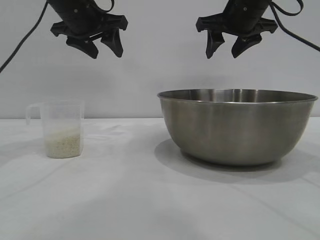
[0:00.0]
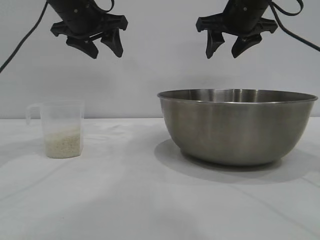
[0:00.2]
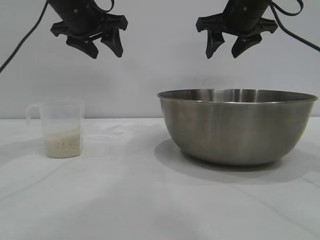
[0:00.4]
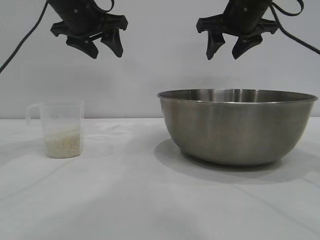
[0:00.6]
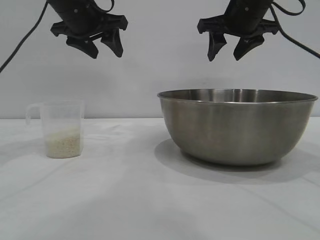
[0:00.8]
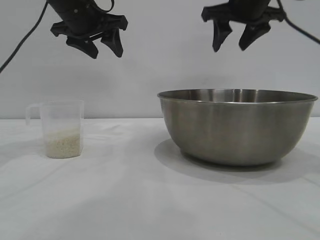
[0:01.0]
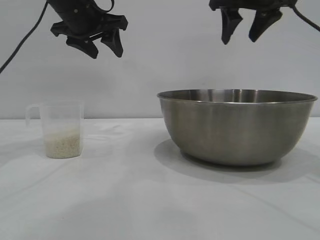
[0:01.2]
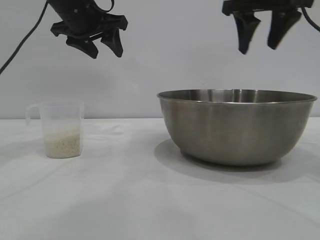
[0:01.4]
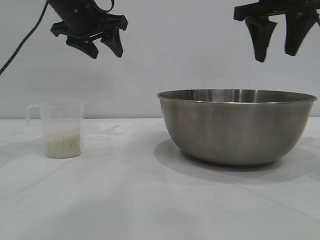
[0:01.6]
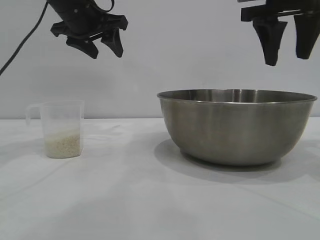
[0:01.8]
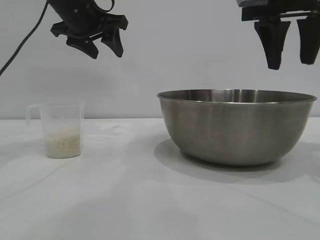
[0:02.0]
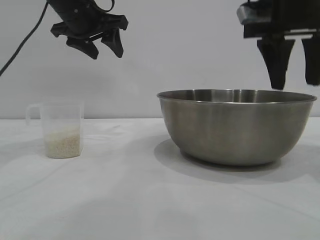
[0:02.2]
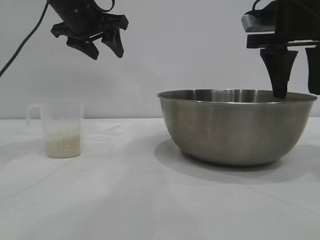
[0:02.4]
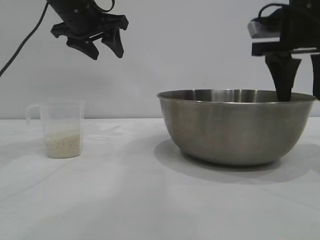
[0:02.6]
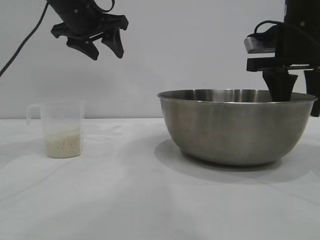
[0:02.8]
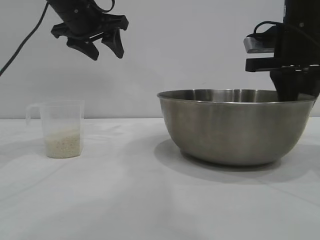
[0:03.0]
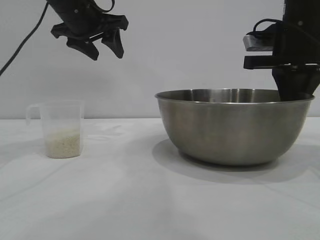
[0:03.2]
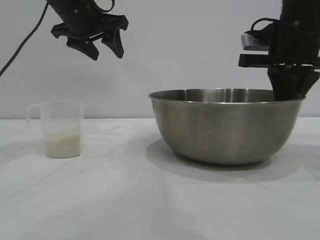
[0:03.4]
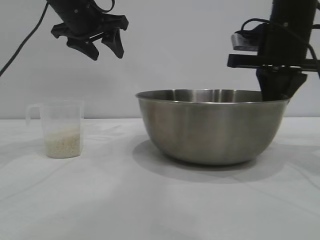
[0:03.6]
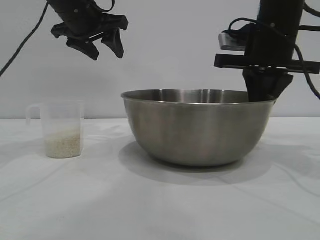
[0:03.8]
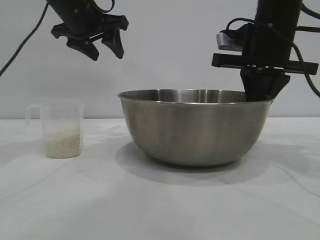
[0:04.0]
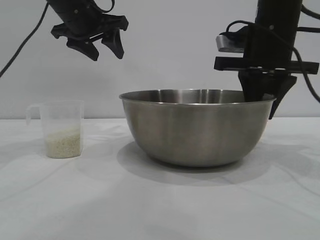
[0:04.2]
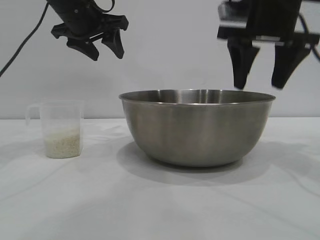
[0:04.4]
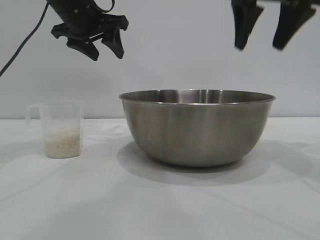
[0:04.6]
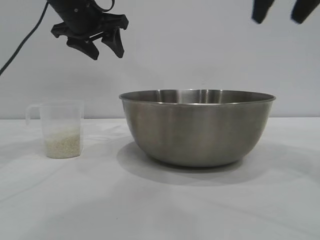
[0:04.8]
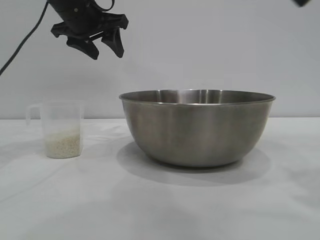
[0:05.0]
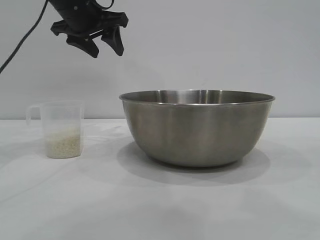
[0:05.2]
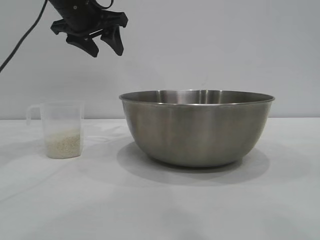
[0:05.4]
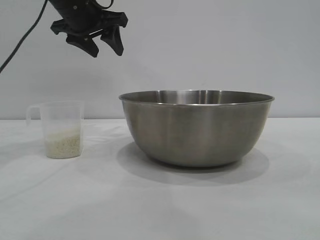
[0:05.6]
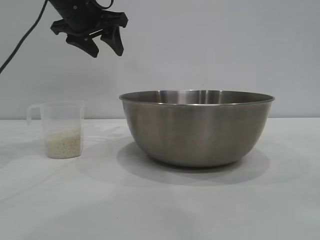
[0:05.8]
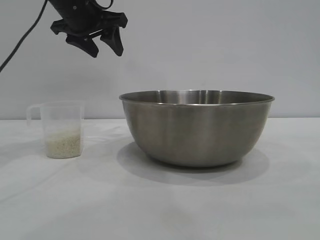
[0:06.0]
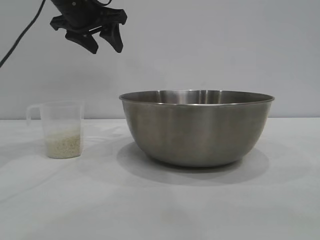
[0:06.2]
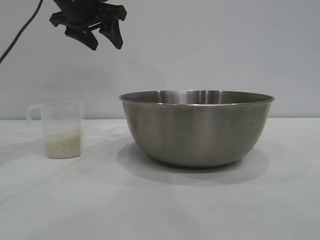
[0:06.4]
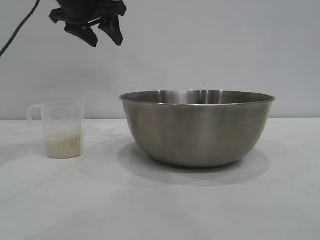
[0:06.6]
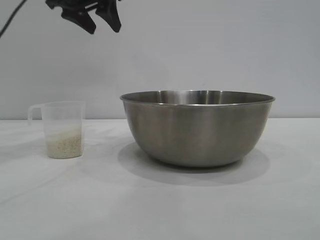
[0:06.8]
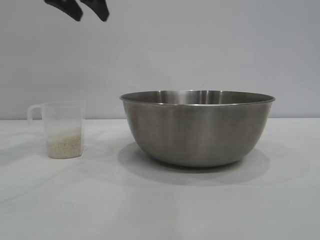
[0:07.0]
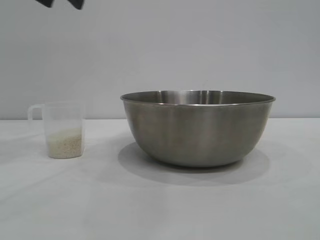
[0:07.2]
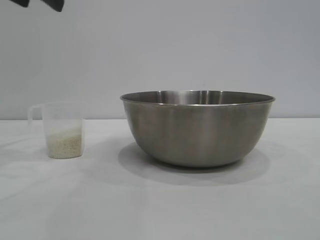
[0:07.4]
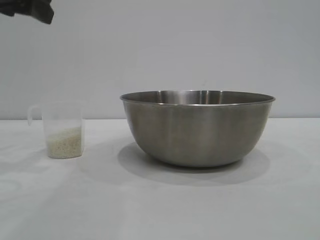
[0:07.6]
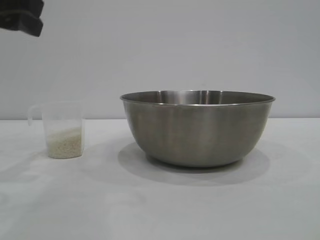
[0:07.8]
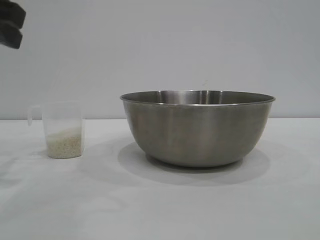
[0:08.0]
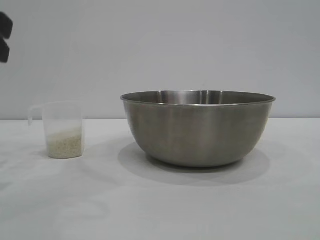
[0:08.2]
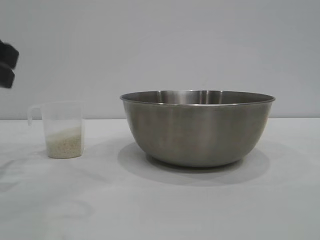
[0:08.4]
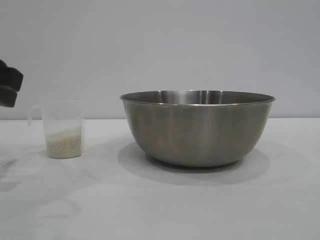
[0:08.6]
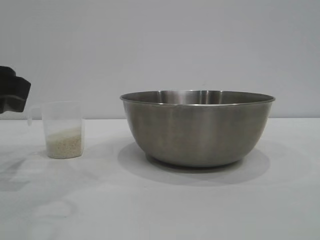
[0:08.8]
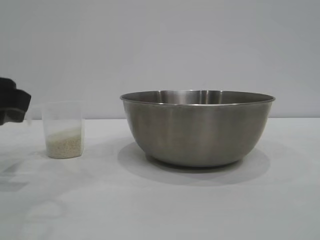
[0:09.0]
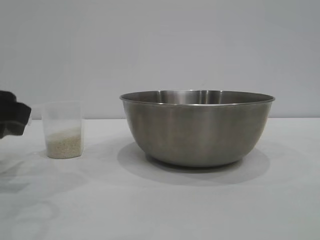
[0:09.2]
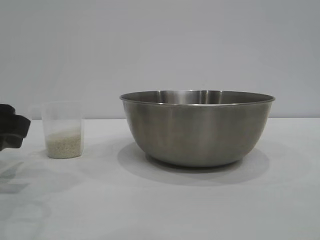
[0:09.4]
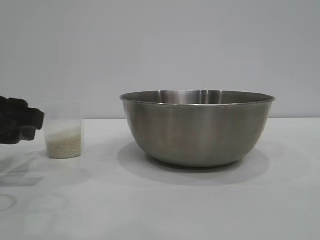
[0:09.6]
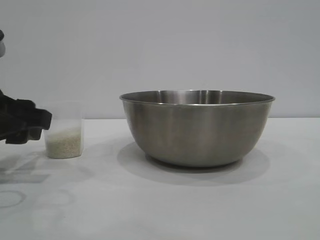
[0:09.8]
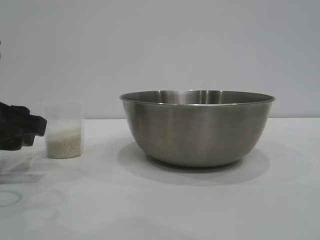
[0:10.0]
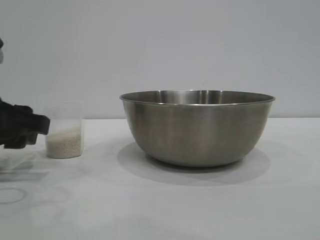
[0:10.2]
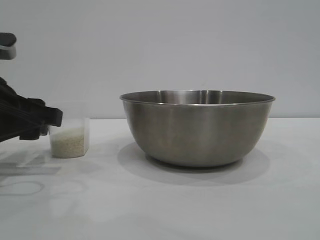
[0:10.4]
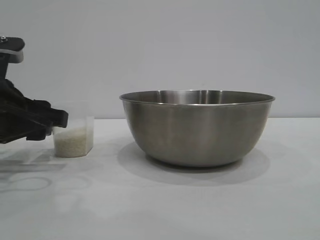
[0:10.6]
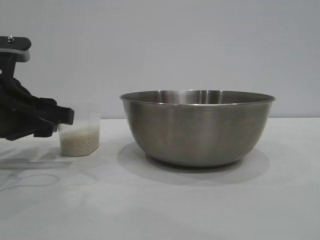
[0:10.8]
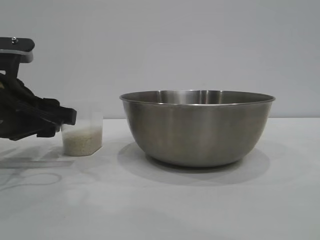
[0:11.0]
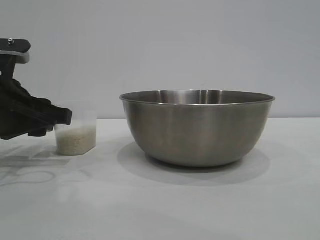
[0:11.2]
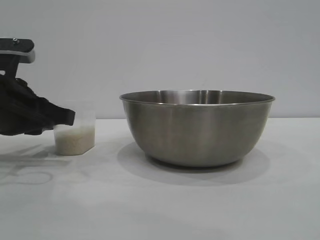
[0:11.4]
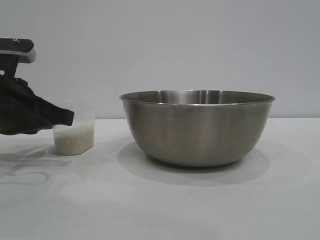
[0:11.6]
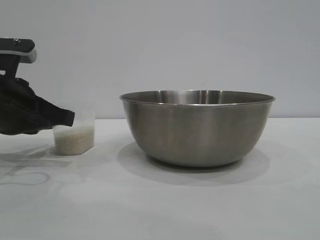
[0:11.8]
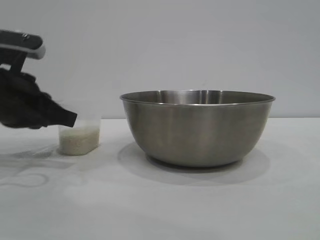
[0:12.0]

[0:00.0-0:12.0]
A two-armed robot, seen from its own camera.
Task of the whole recording: the right gripper grasp the rice container and place it in the center of the table, the left gripper grasp the rice scoop and pour the rice into the rice container.
Step, 0:00.0 to 0:04.2: Move the bowl to the center of view with the right gripper.

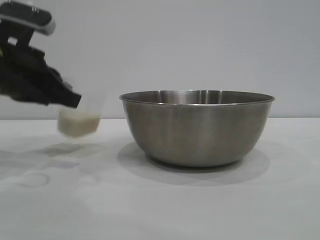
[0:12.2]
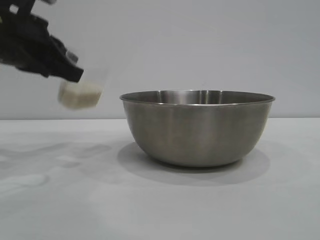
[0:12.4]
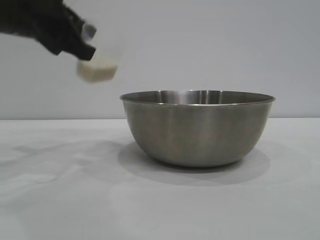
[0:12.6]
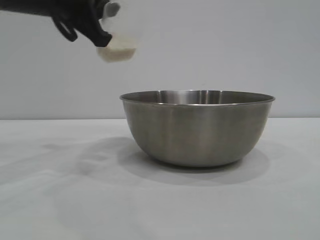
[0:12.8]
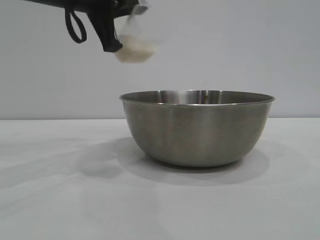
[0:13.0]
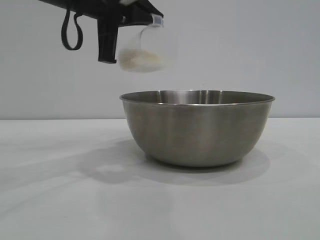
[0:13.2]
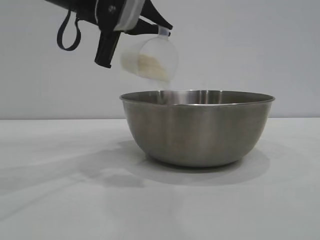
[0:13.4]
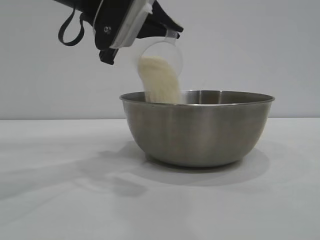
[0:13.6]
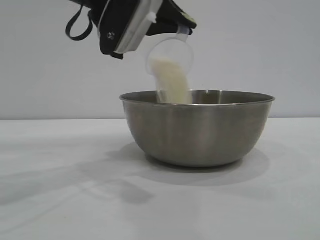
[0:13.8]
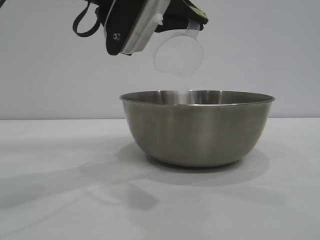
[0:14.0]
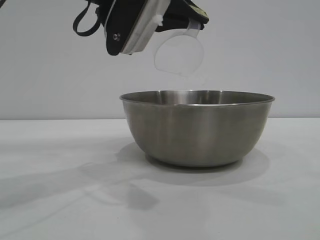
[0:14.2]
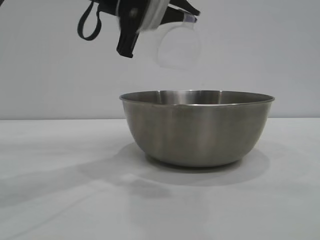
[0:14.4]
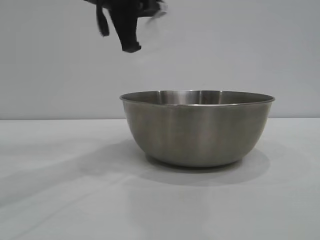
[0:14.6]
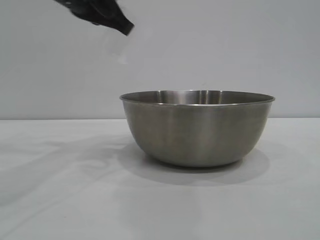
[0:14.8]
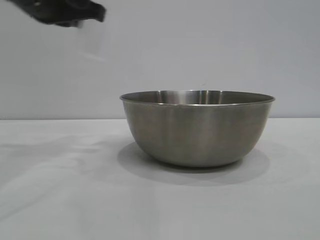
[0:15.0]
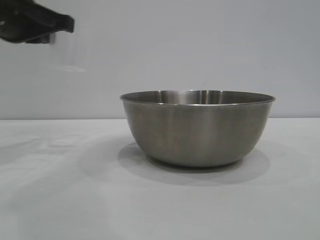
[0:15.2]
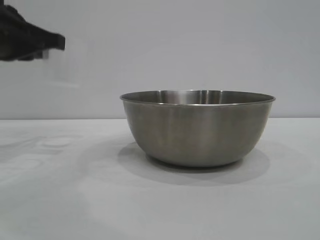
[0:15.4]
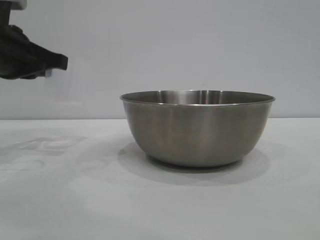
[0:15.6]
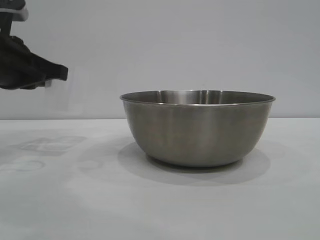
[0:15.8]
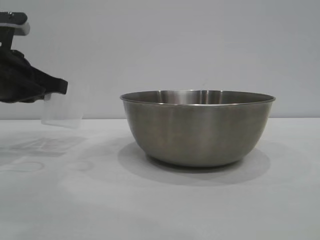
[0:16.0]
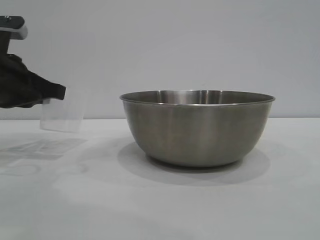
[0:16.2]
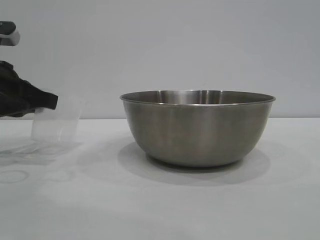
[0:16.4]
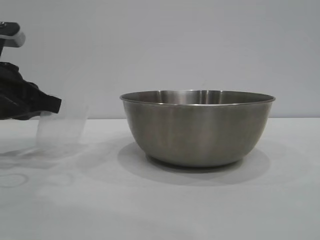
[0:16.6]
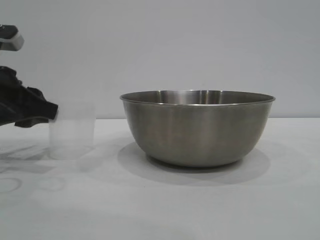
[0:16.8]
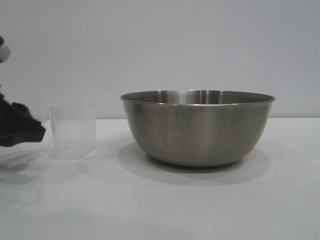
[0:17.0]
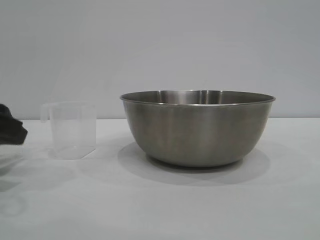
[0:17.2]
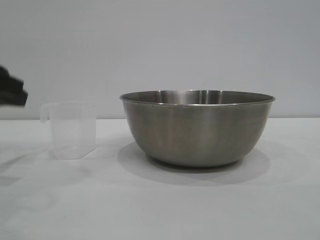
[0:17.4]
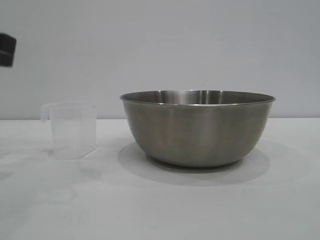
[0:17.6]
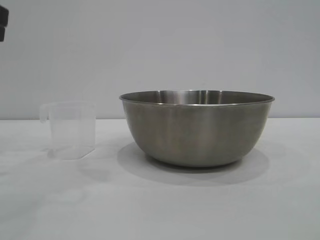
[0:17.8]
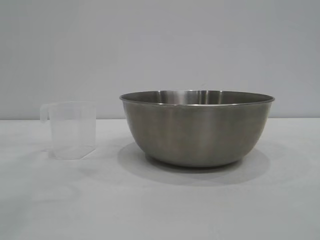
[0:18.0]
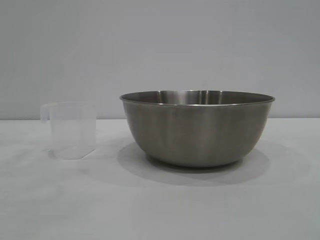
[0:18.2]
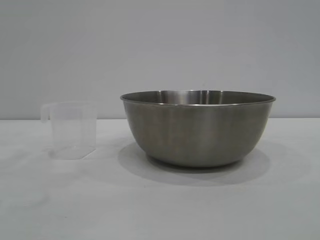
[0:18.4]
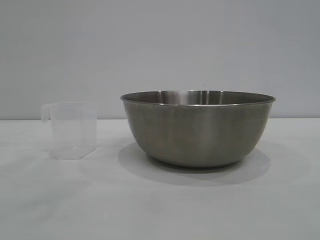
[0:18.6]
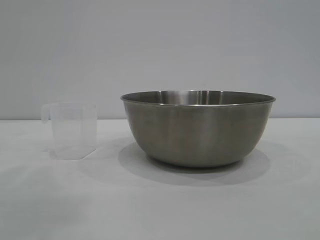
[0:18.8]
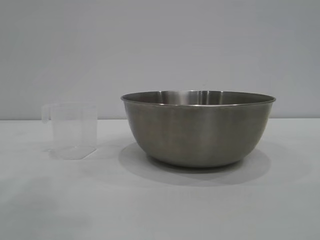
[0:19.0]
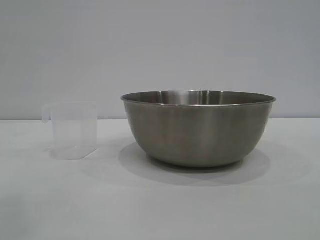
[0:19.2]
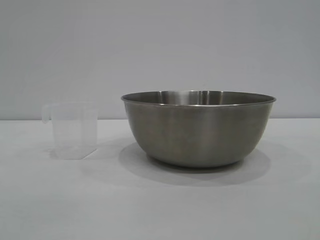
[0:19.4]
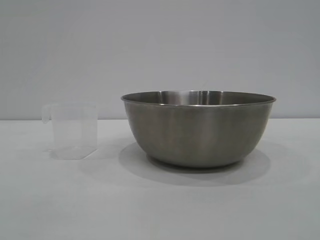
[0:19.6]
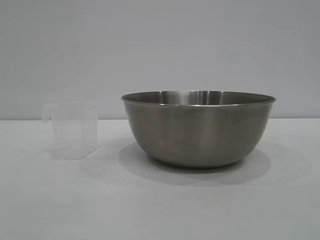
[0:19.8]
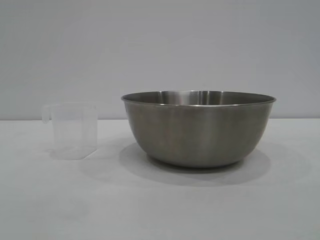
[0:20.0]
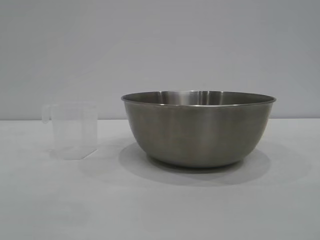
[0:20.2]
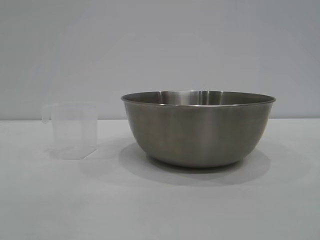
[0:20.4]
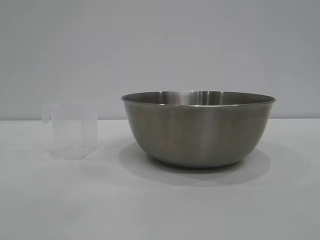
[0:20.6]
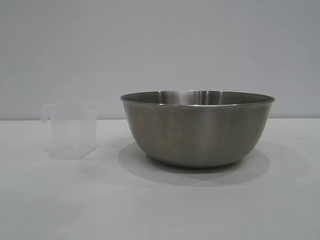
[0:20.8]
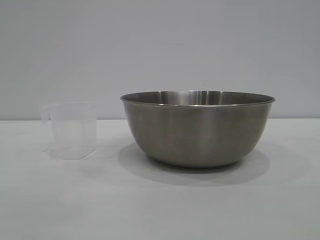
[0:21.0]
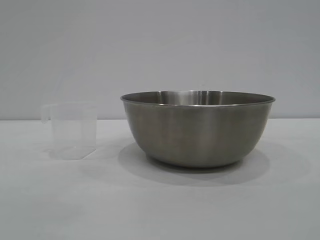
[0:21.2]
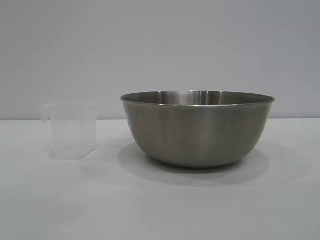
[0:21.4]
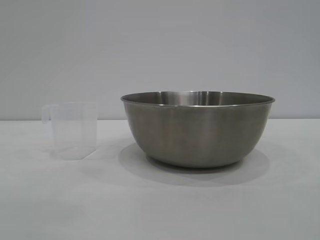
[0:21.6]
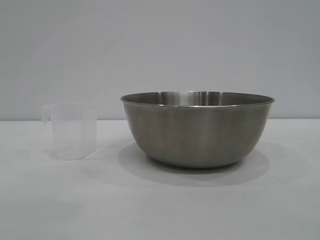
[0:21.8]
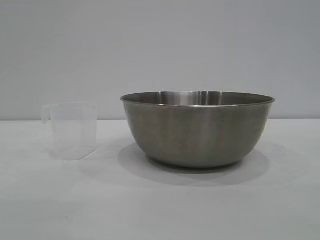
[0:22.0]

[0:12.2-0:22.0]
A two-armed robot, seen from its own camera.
Task of the whole recording: the right gripper grasp the rice container and place it in the center of the table, the left gripper grasp the rice scoop and pour the rice into the rice container.
Step, 0:12.6 to 0:14.2: Pour the rice from the cup into the bowl with the left gripper.
Step, 0:14.6 to 0:17.0: Place the cup on the table with the left gripper.
